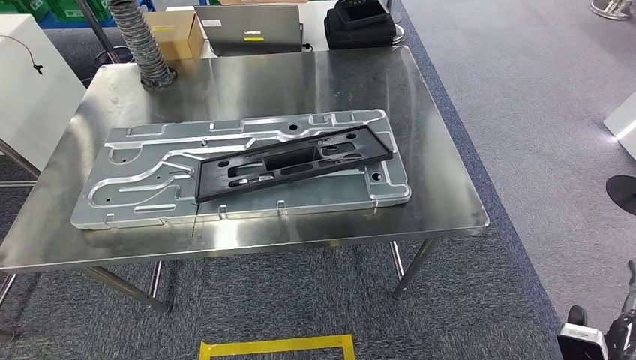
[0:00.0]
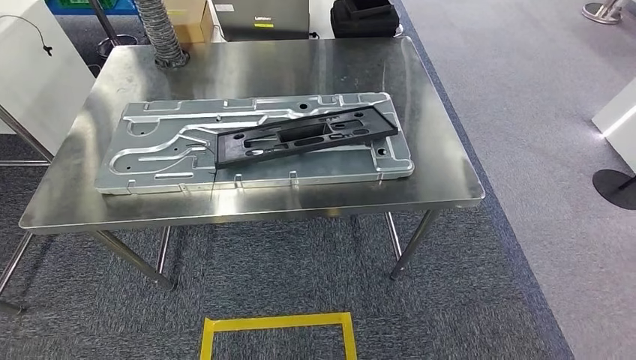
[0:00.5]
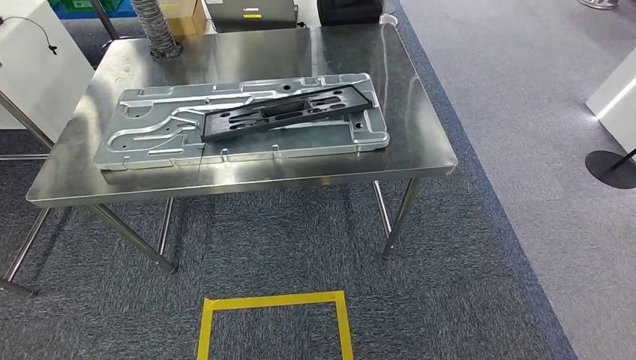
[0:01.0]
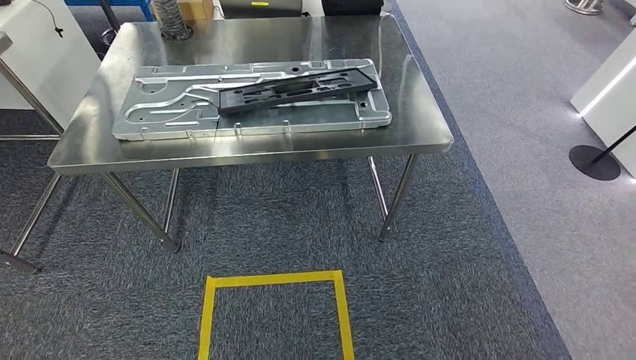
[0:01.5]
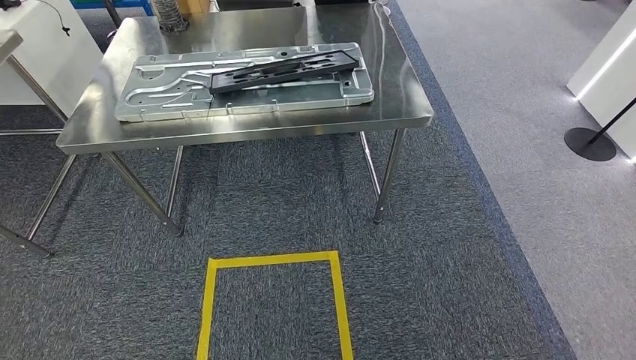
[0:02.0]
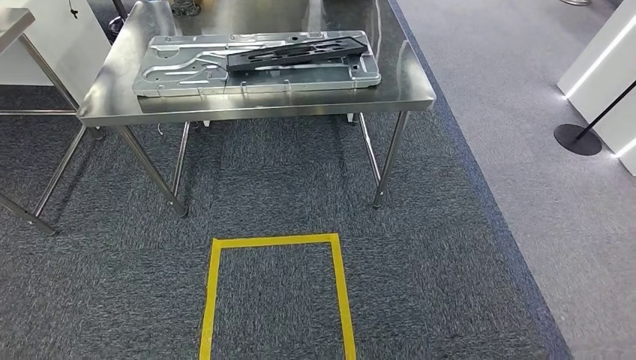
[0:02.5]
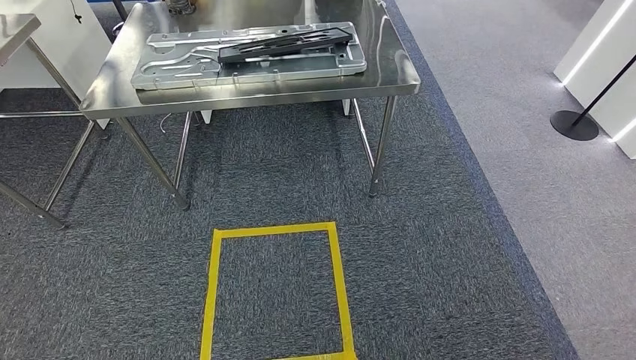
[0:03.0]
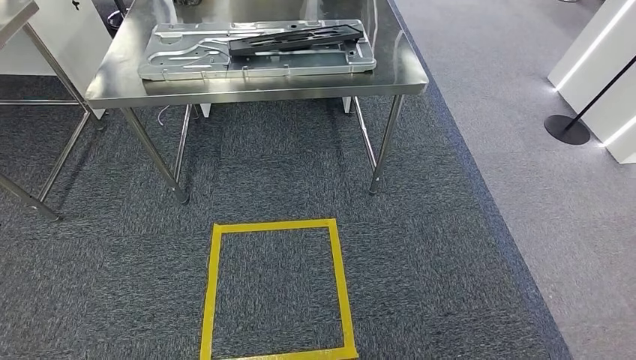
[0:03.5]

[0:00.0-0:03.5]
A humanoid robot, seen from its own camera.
Step, 0:02.0 to 0:03.5: Move to the initial position of the shelf.
